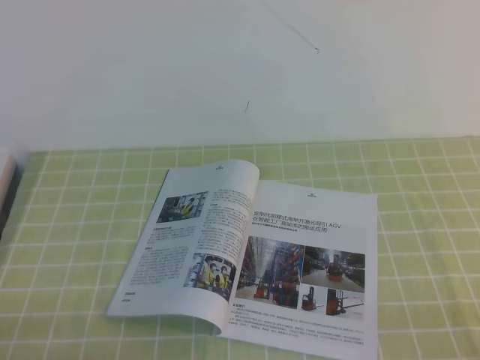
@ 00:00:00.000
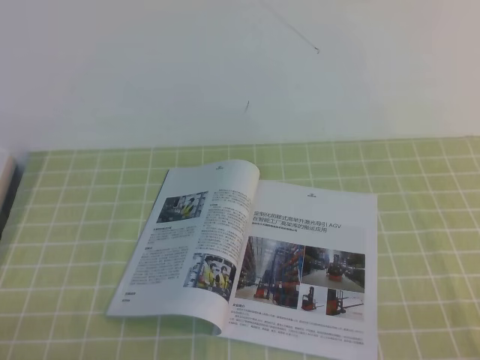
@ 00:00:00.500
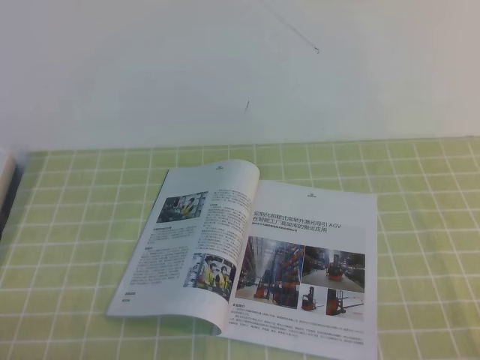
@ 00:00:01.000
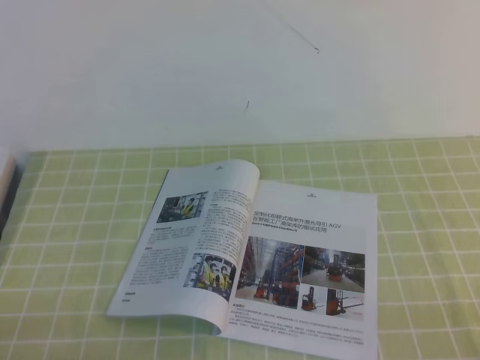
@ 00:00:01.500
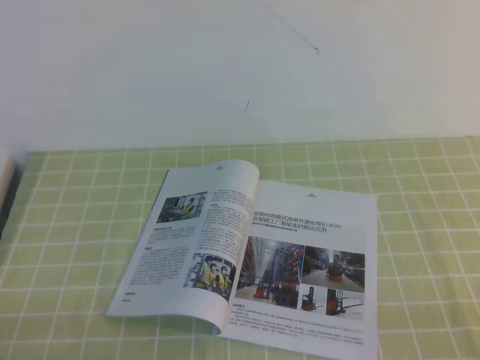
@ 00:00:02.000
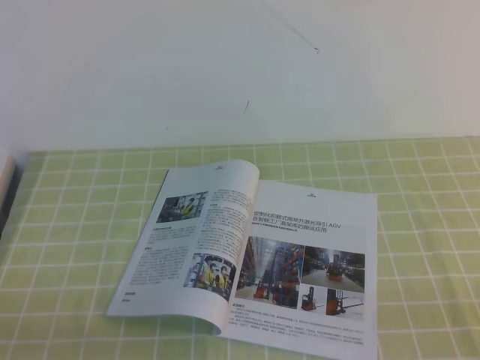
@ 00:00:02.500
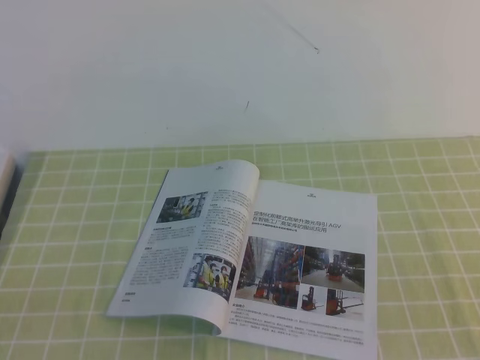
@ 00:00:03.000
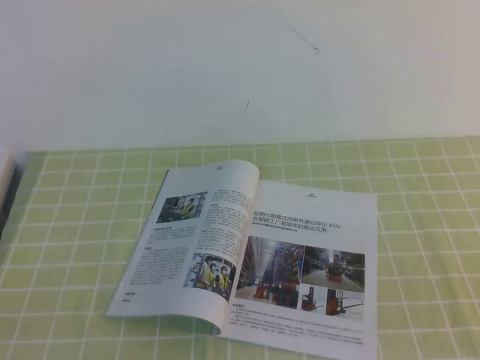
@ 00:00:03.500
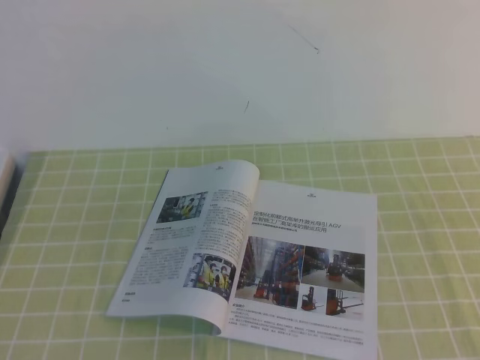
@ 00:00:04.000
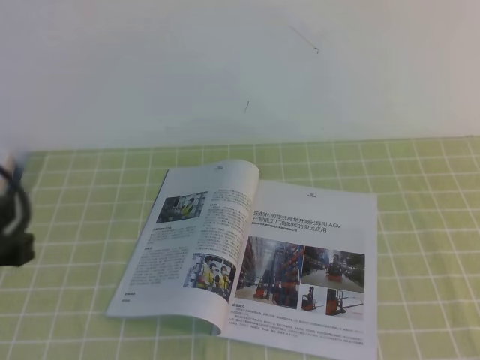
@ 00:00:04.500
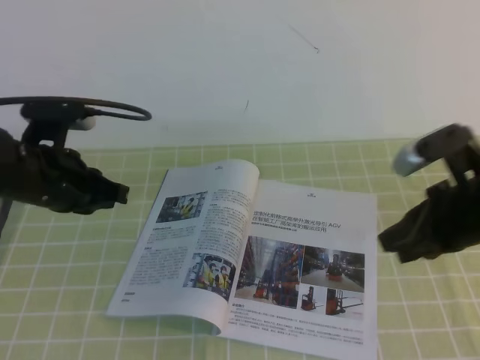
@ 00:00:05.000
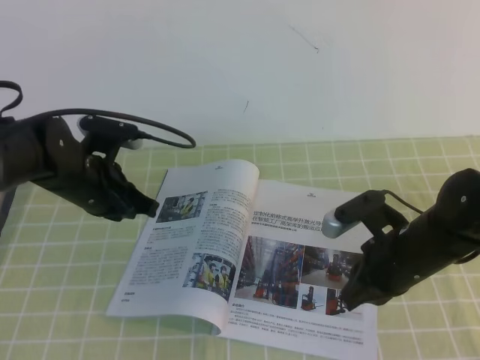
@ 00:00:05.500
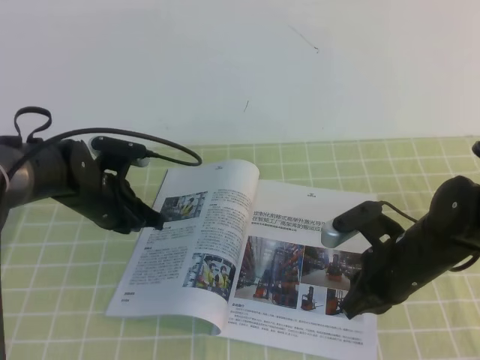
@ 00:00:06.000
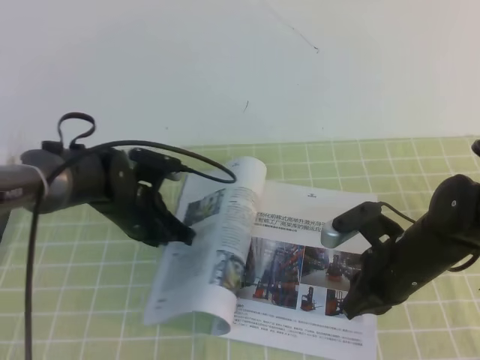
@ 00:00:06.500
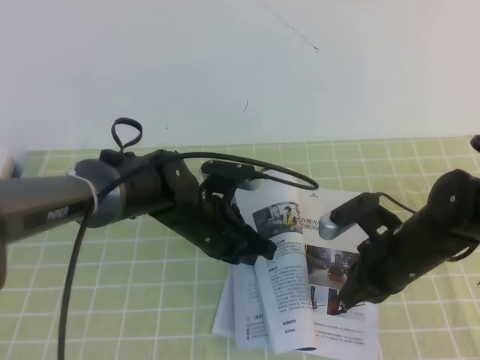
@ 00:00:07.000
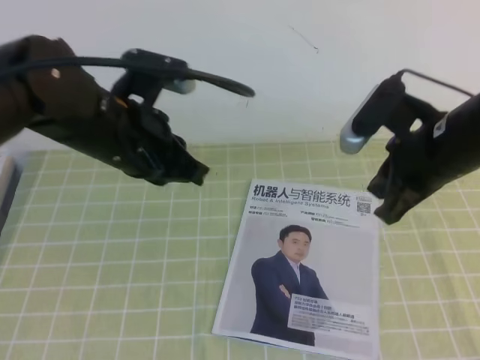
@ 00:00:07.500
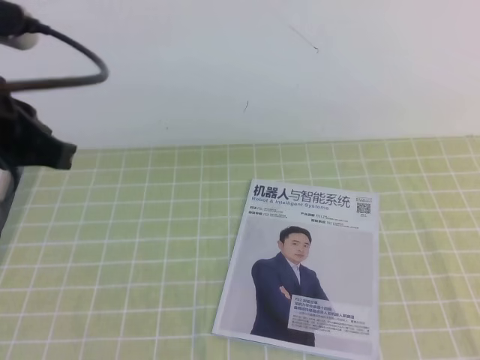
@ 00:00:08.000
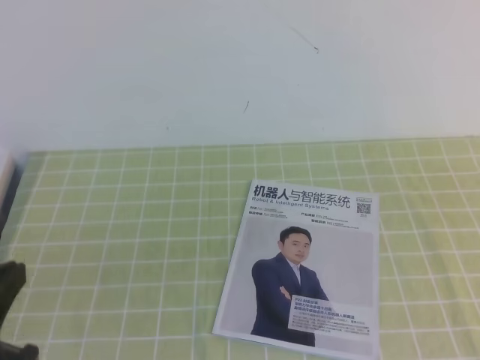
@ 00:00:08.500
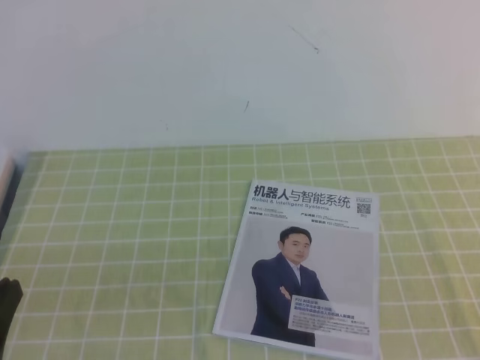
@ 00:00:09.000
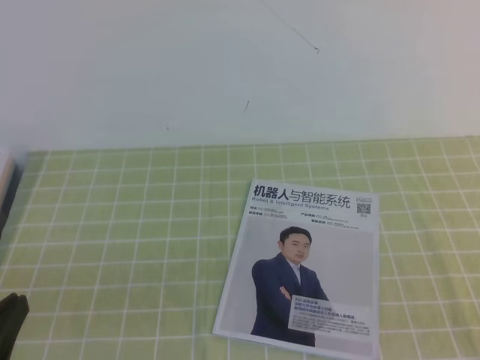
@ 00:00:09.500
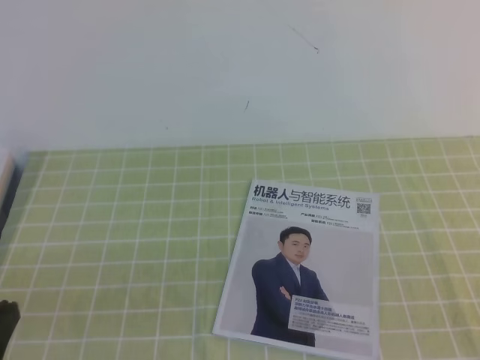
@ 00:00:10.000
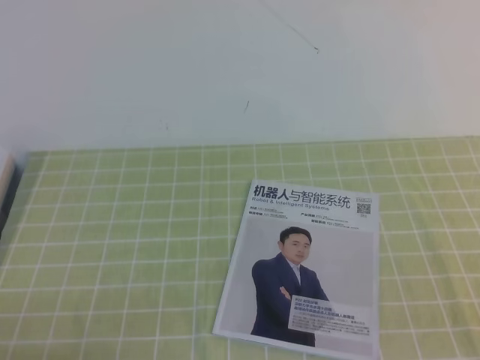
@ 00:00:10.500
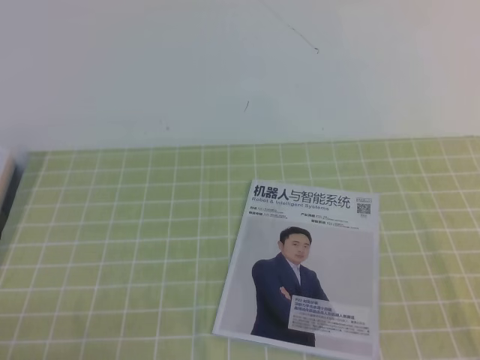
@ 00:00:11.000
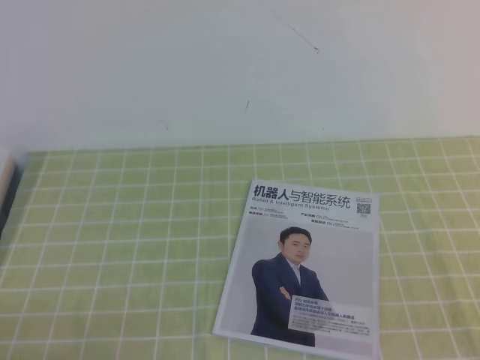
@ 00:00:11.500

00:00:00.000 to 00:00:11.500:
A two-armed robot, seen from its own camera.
Task of the whole recording: on the green tablecloth, hold the book with one hand and close it with the other.
Step, 00:00:00.000 to 00:00:11.500: Close the open book.
00:00:00.000 to 00:00:02.000: Both grippers stay about where they are.
00:00:04.000 to 00:00:06.000: The right gripper heads forward, downward and to the left, covering about 40 cm. The left gripper shifts some 40 cm forward and downward.
00:00:06.000 to 00:00:07.500: The left gripper heads upward, backward and to the right, covering some 20 cm. Meanwhile the right gripper is displaced upward by roughly 15 cm.
00:00:07.500 to 00:00:09.500: The left gripper goes about 25 cm backward and to the left; the right gripper moves backward and to the right, about 30 cm.
00:00:09.500 to 00:00:11.500: The left gripper shifts approximately 5 cm downward.
